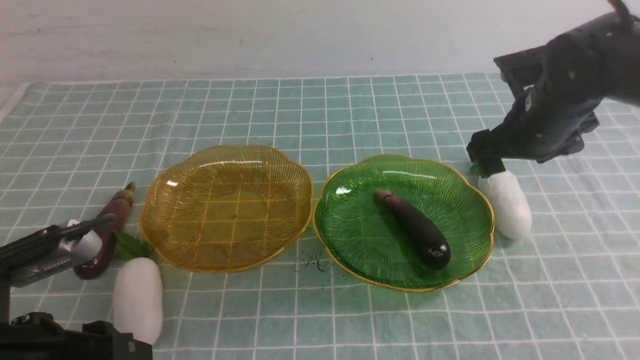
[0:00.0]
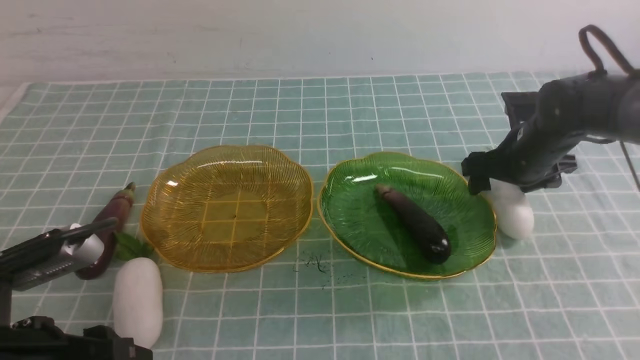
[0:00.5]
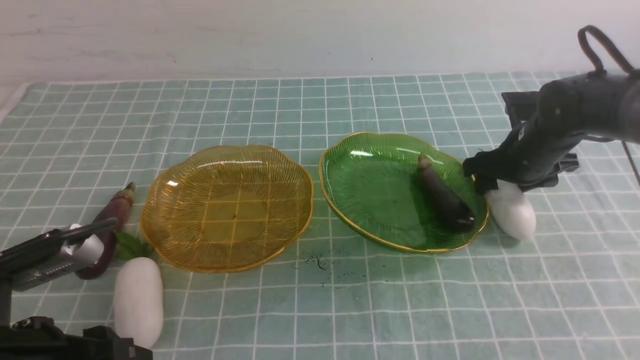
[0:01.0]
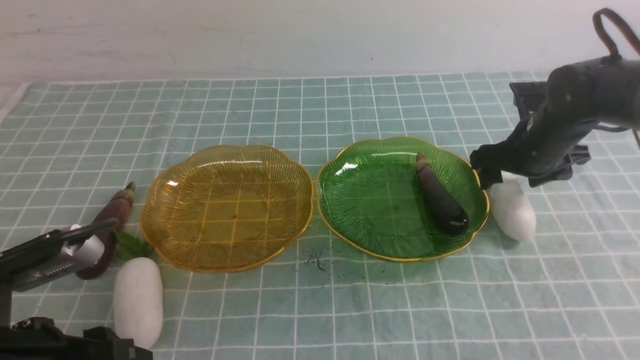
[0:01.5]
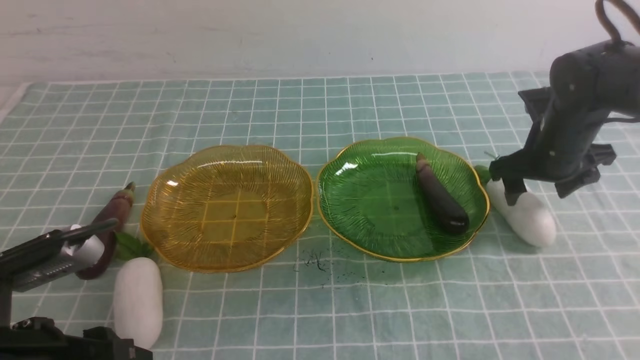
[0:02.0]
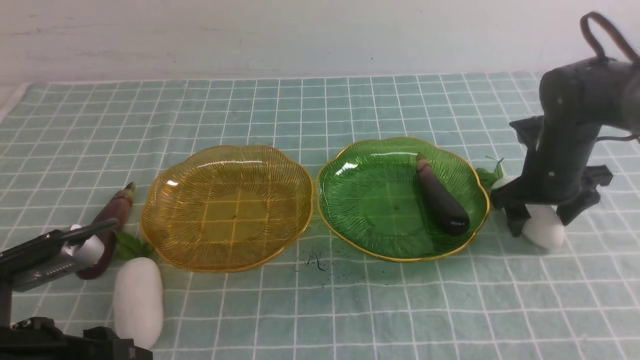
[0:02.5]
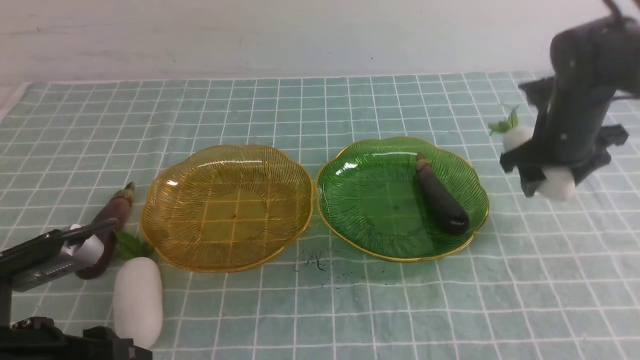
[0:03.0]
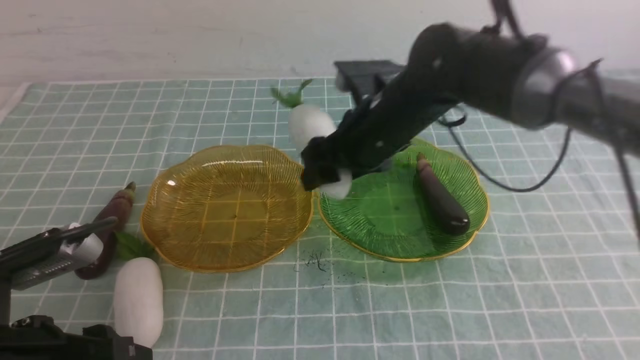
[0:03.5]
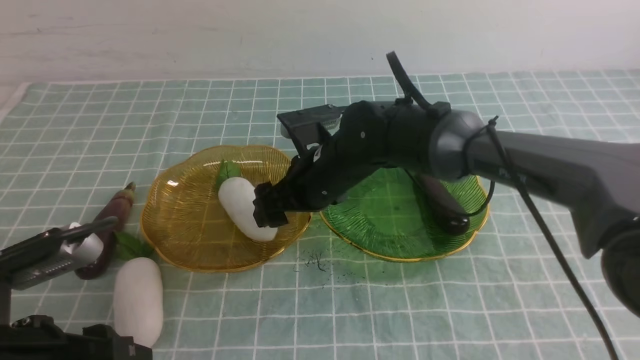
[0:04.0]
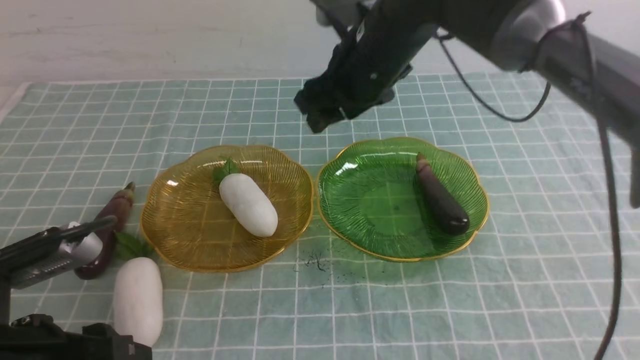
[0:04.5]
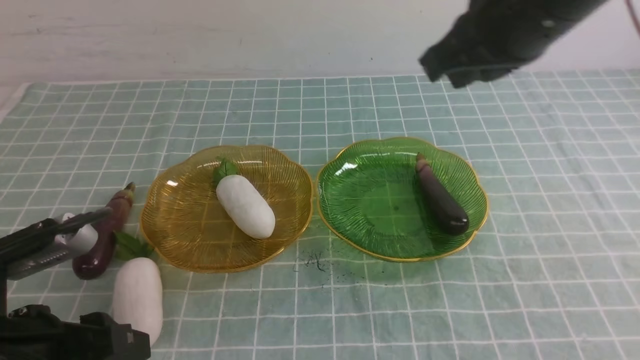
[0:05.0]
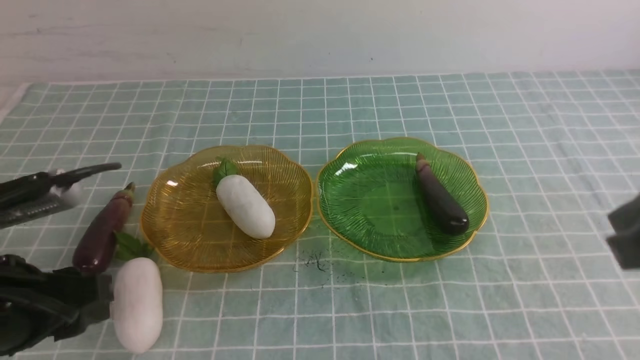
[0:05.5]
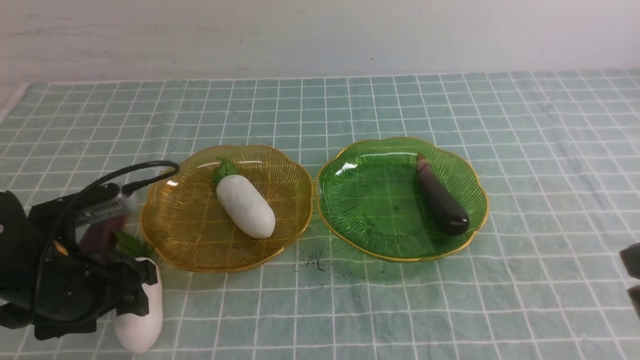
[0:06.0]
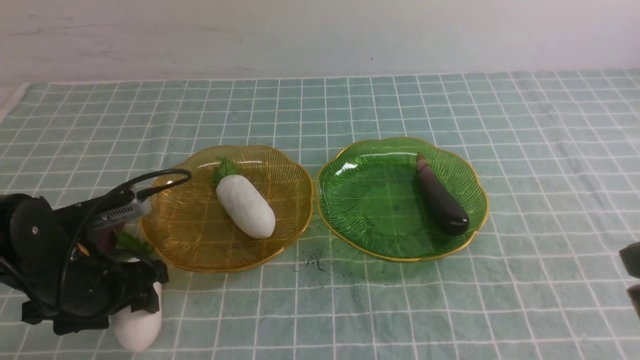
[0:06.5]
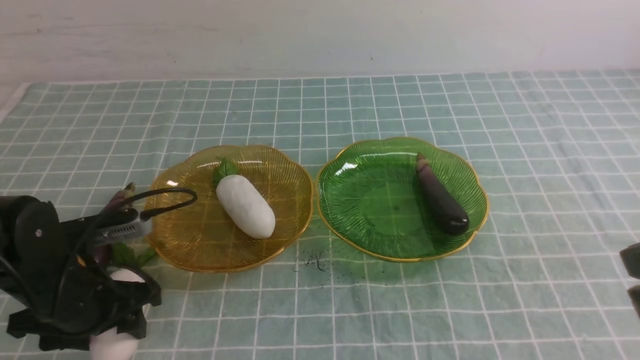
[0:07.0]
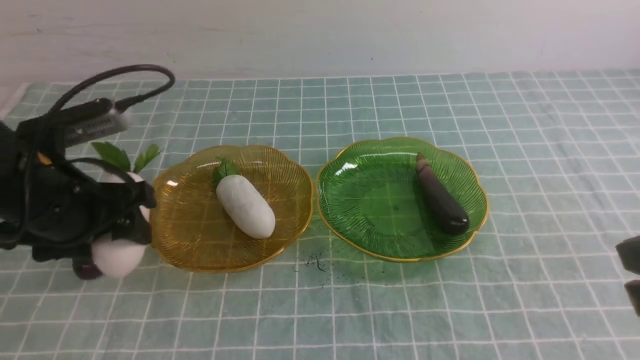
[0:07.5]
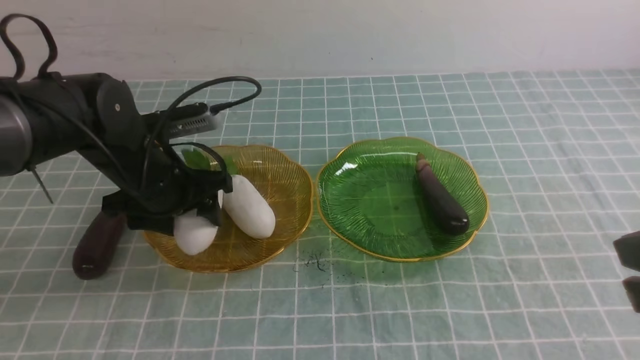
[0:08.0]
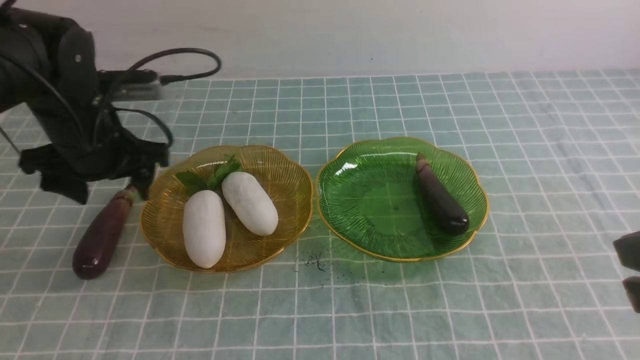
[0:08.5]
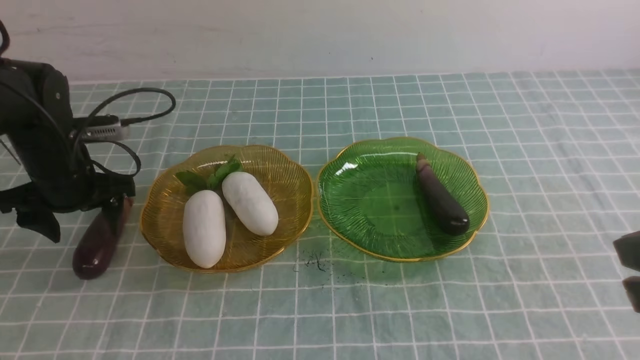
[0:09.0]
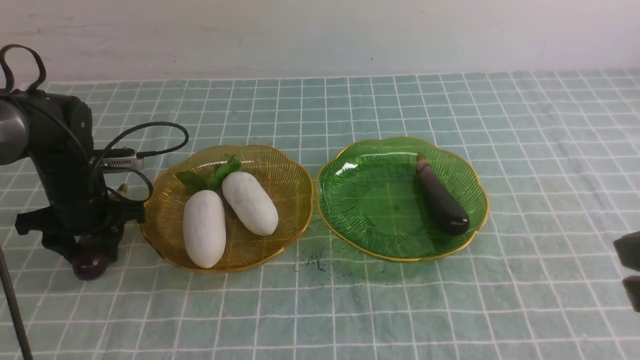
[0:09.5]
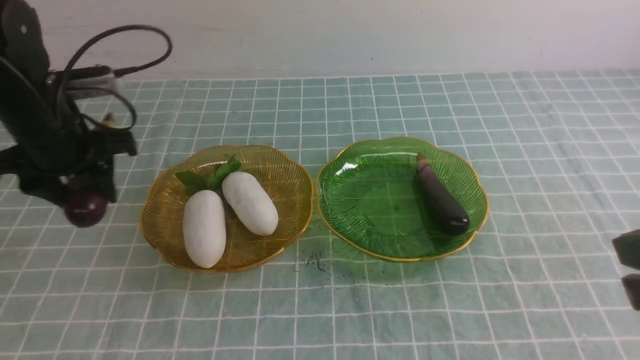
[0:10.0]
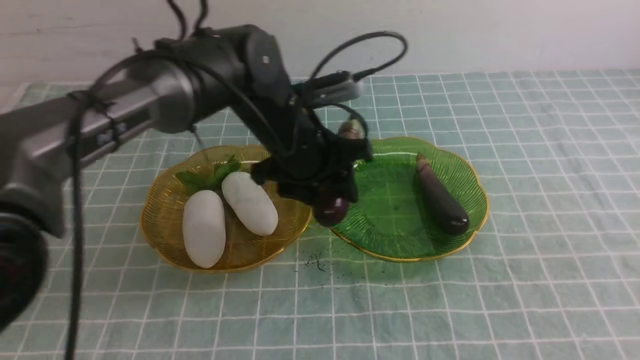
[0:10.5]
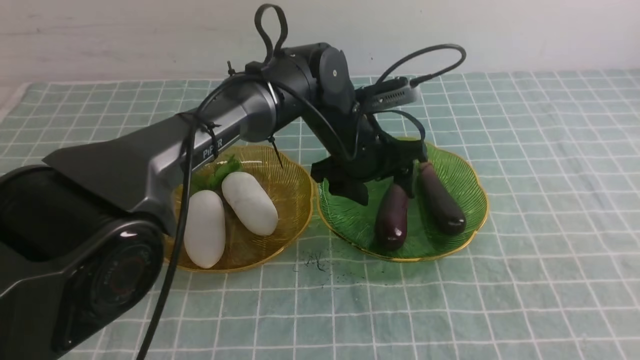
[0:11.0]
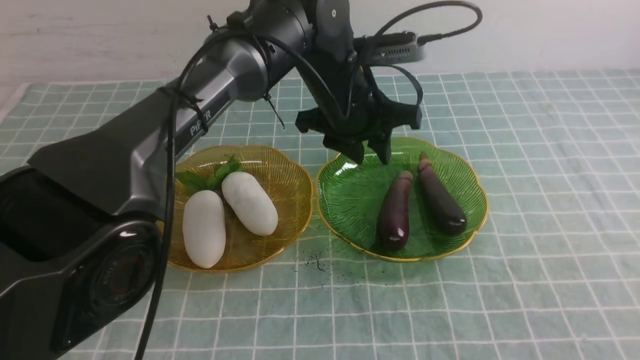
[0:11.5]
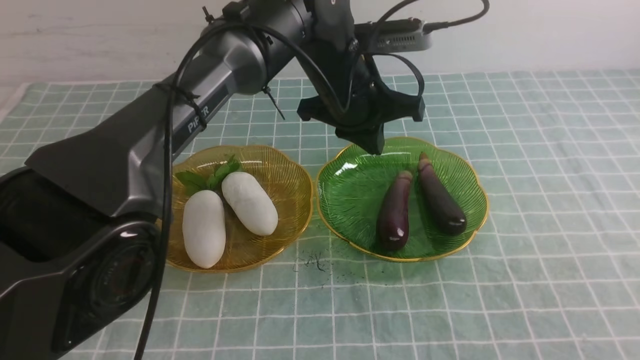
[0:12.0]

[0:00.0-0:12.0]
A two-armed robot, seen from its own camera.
Step, 0:00.0 to 0:04.0: use the right arm to grab a radish and put it into the left plate.
Step, 0:04.5 to 0:08.0: use the left arm to grab a radish and put it into the left plate.
Step, 0:08.5 to 0:11.0: use the left arm to grab an eggplant and put it into the right plate.
0:00.0 to 0:02.0: The right gripper ends up some 5 cm from where it was.
0:02.0 to 0:04.0: The right gripper shifts approximately 25 cm to the left.
0:04.0 to 0:06.0: The left gripper heads forward, covering some 10 cm, while the right gripper shifts some 40 cm backward, to the right and upward, and closes its fingers.
0:06.0 to 0:08.0: The left gripper goes roughly 15 cm forward and to the right.
0:08.0 to 0:10.0: The left gripper shifts some 5 cm to the left.
0:10.0 to 0:12.0: The left gripper heads to the right, covering roughly 25 cm, and closes. The right gripper heads backward and downward, covering approximately 10 cm.

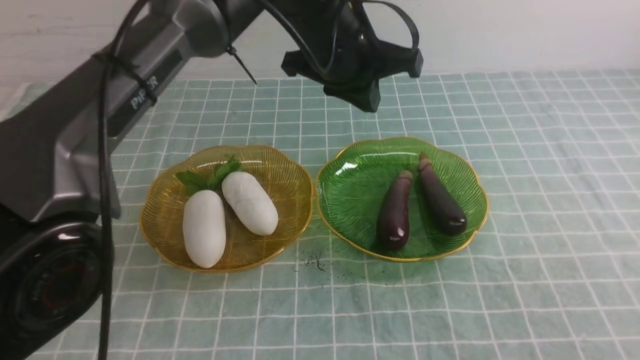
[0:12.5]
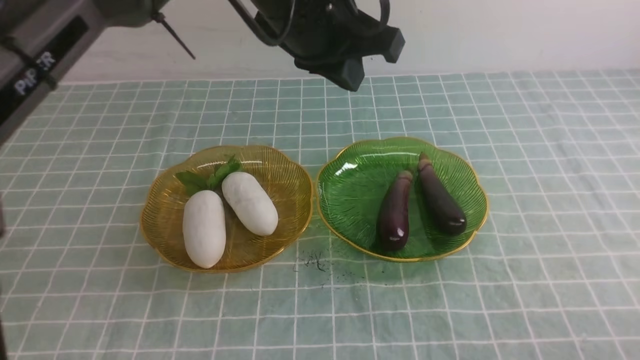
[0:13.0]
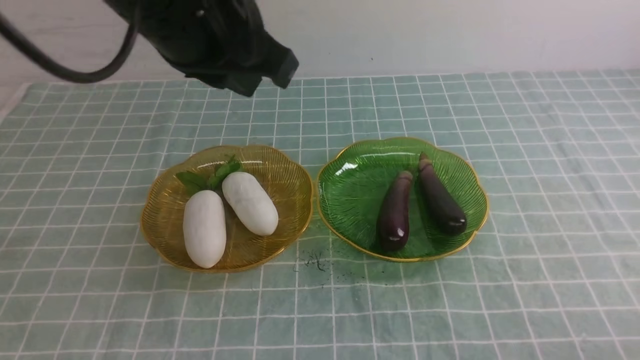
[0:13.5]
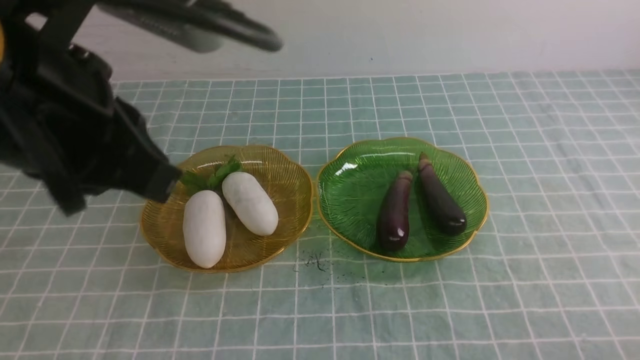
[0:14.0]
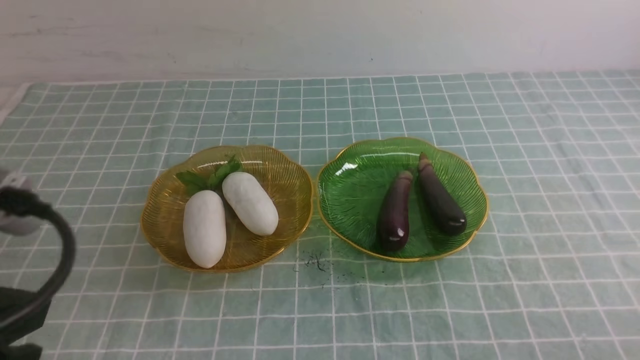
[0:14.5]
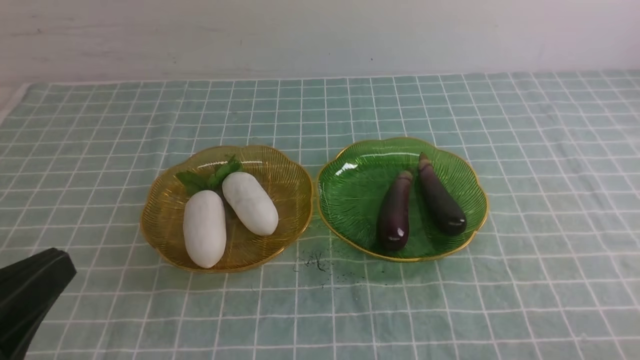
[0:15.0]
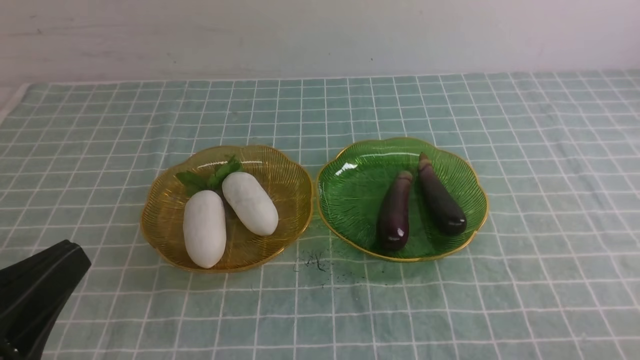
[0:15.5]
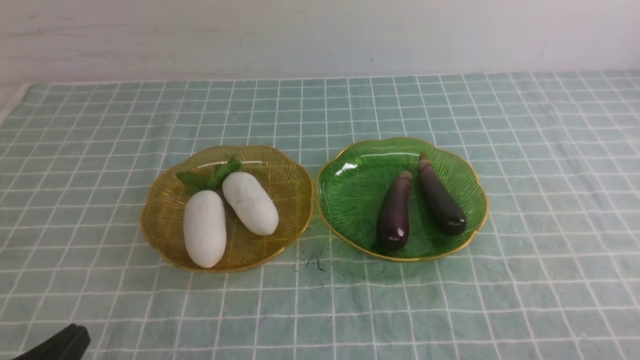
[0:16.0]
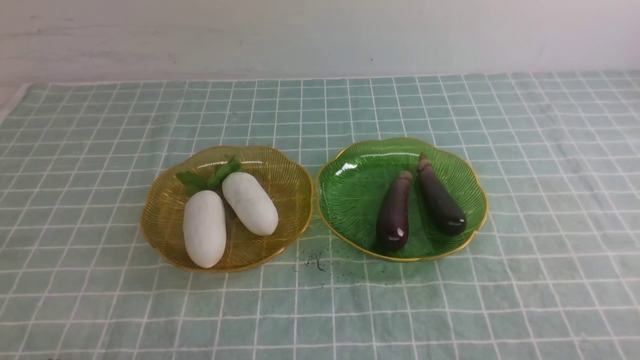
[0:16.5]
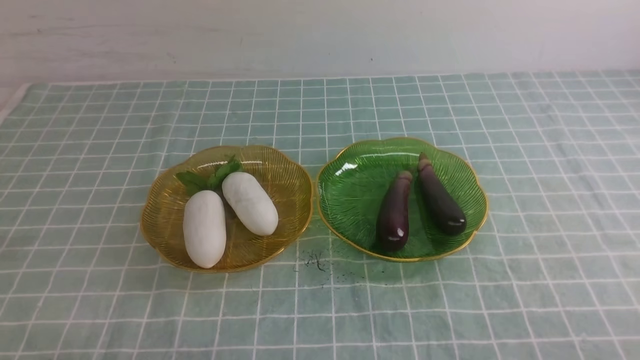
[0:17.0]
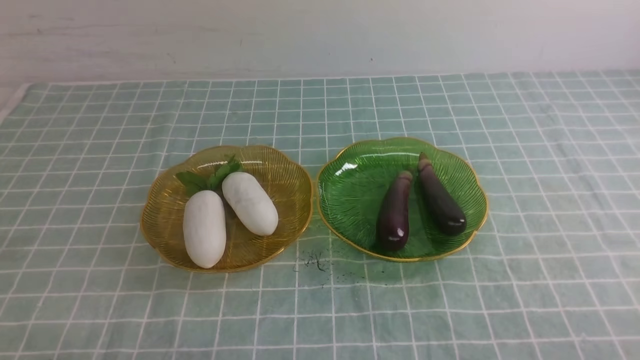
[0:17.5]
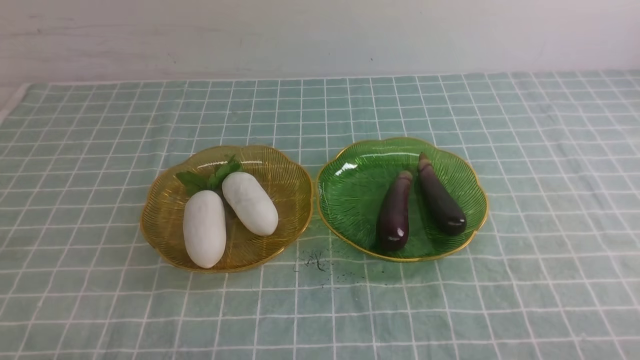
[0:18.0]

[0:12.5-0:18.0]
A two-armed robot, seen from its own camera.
0:12.5 to 0:14.5: The right gripper is displaced downward by roughly 5 cm, while the left gripper goes about 40 cm backward and to the left.
0:14.5 to 0:16.0: The left gripper goes some 15 cm downward.

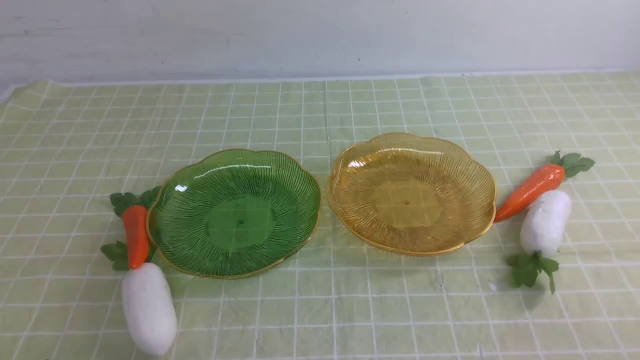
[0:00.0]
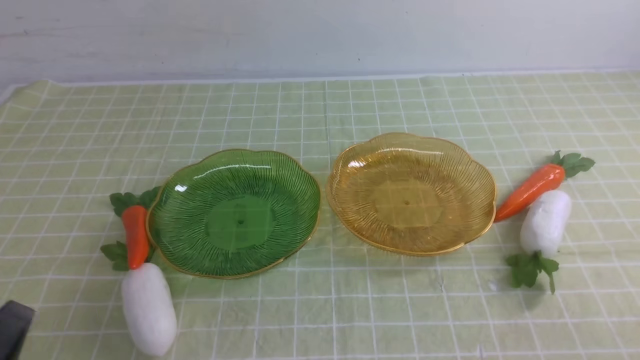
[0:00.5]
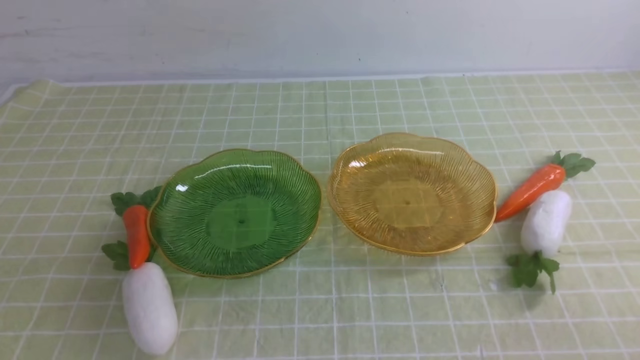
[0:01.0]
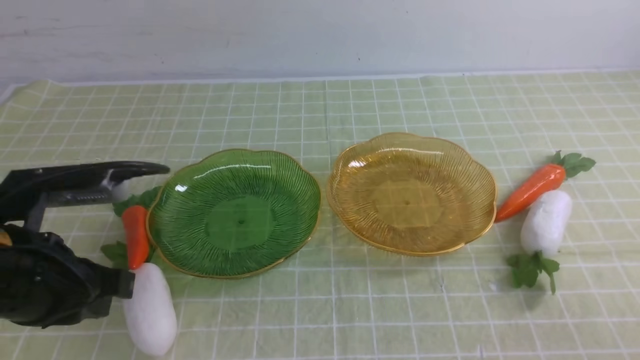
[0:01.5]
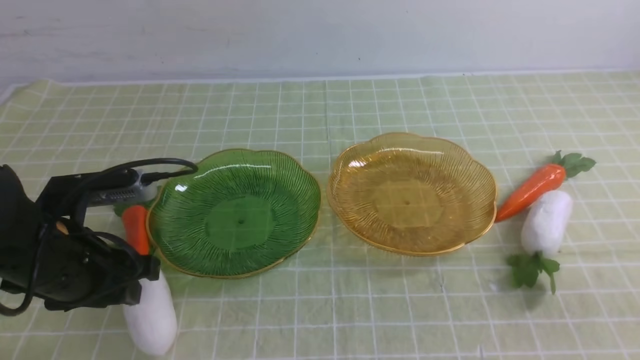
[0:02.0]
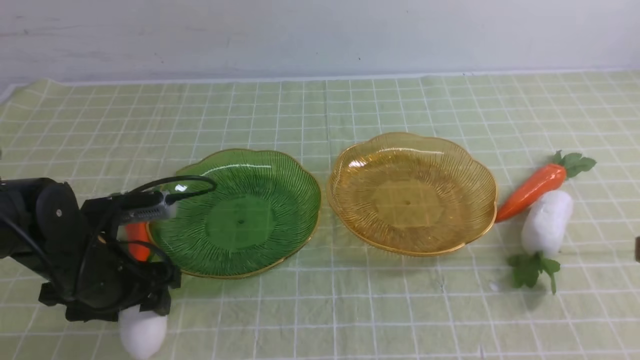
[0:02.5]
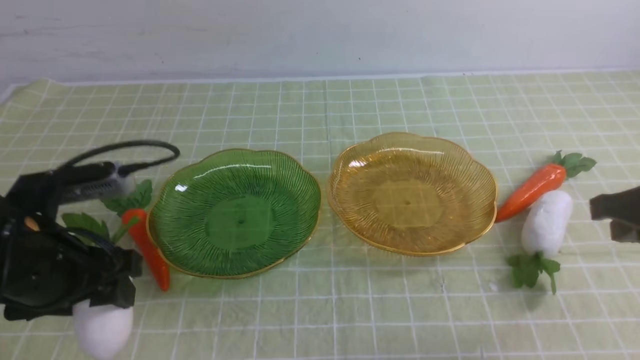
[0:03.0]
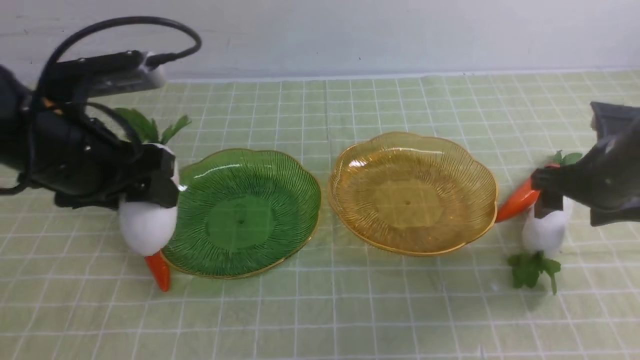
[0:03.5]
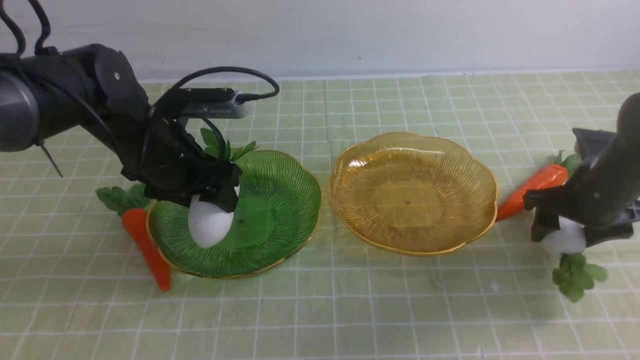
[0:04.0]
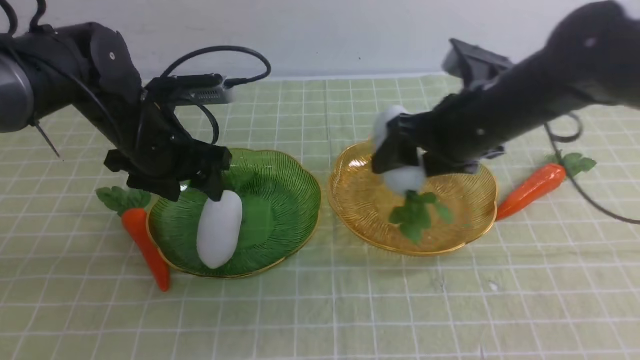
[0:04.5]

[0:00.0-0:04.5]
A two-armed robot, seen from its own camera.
0:00.0 to 0:02.0: The left gripper is displaced forward by some 20 cm, and opens.
0:02.0 to 0:04.5: The right gripper moves forward and to the left, roughly 35 cm, and opens. Meanwhile the left gripper is displaced forward by roughly 15 cm.
